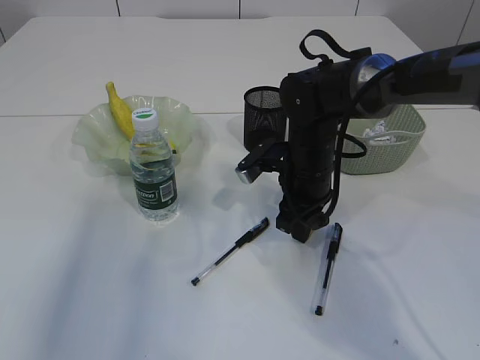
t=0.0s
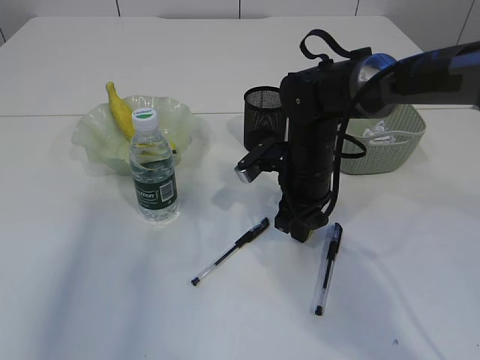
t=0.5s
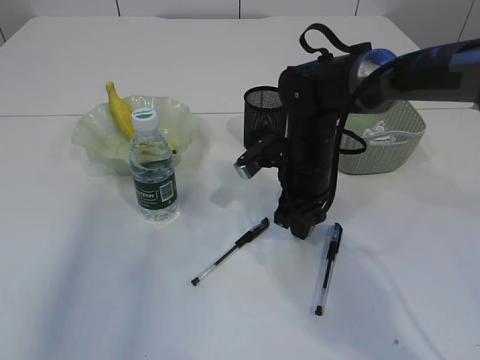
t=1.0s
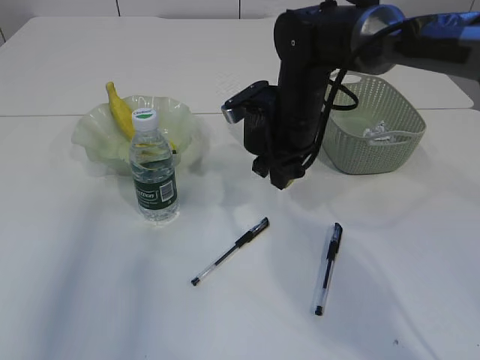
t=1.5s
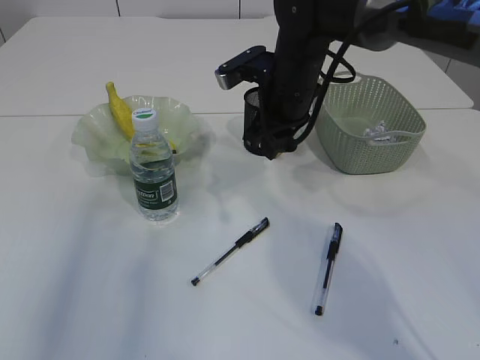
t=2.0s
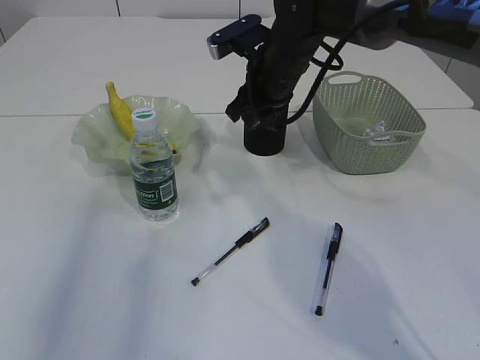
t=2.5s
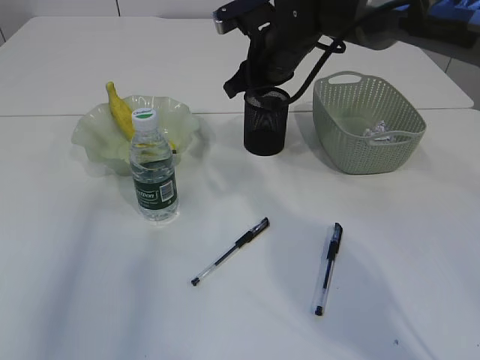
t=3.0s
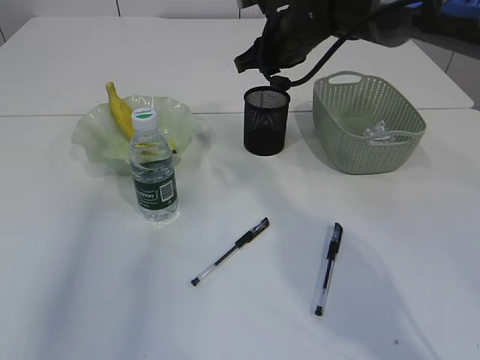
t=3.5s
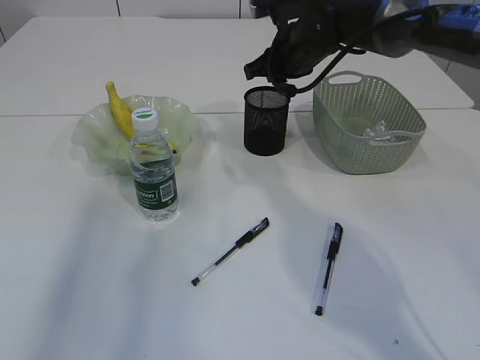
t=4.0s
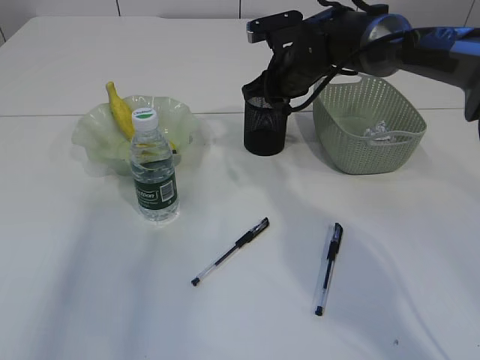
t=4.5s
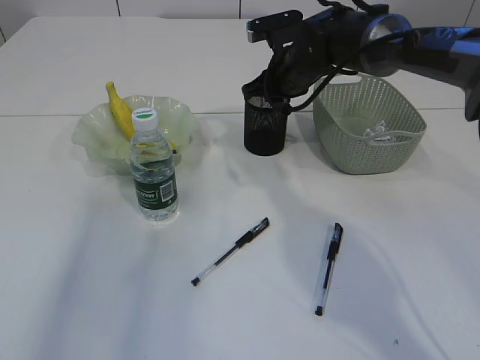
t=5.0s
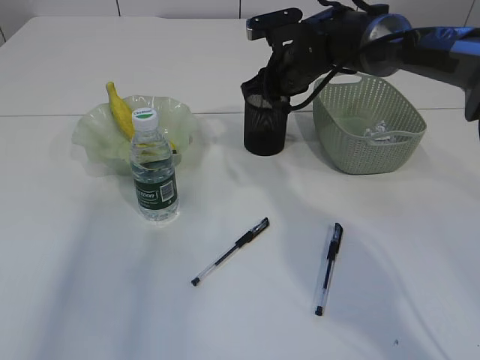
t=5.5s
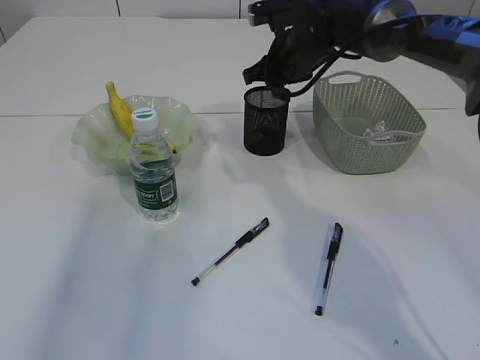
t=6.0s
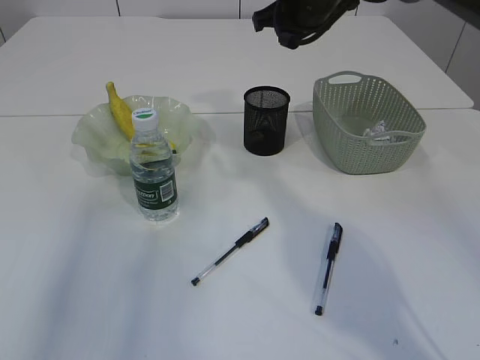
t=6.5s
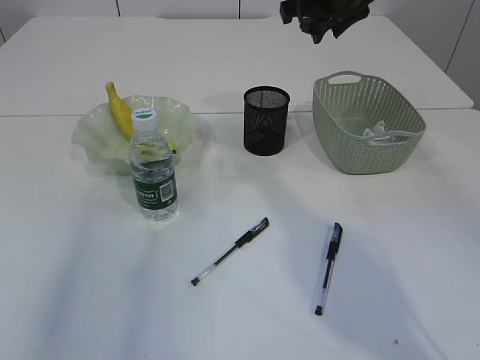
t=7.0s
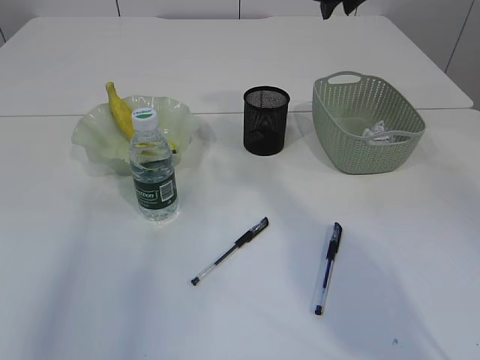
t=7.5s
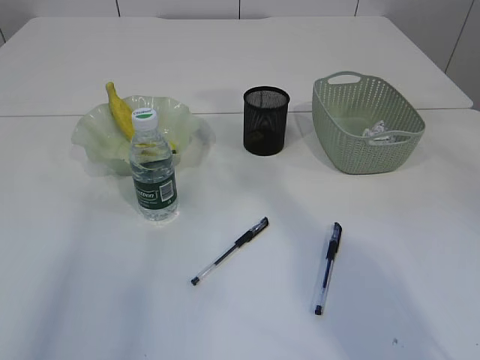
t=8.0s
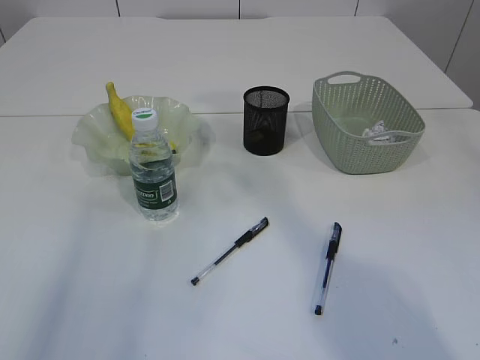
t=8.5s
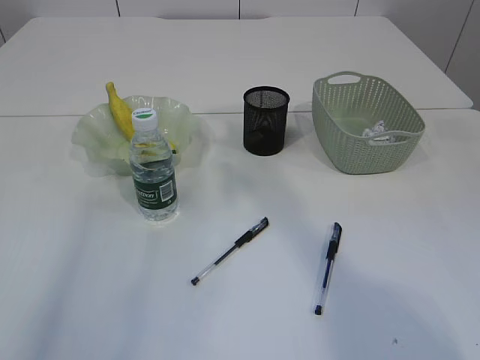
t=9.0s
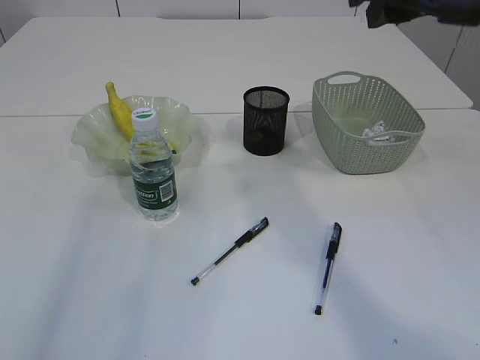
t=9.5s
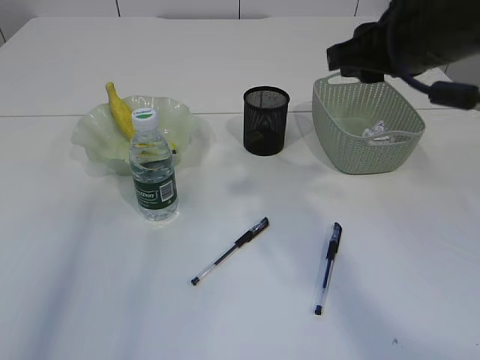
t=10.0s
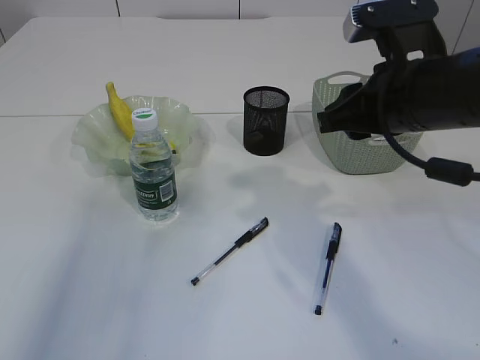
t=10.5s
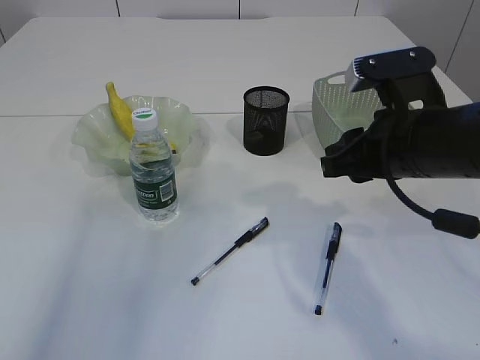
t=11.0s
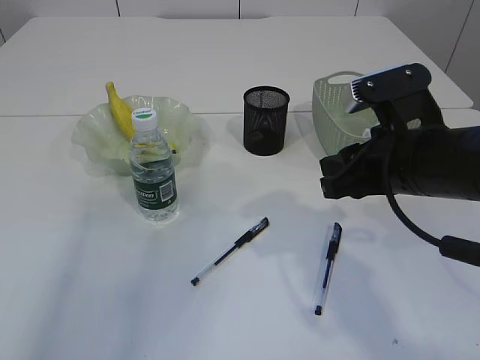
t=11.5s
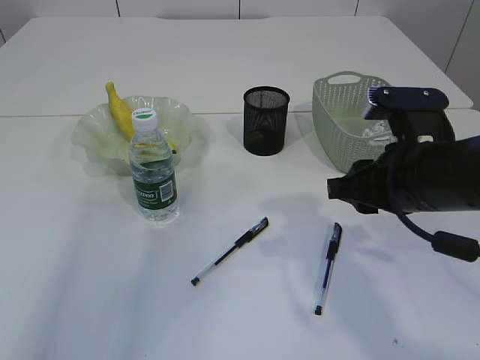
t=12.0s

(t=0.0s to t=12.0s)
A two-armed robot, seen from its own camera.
Step, t=1.5s - t=6.0s: Place the eraser into the pen holder.
t=0.0s - t=2.0s: The right gripper moves upward, some 10 cm.
t=2.0s - t=4.0s: The right gripper moves forward, about 5 cm.
t=4.0s - t=6.0s: The grippers stay close to where they were, moving slightly.
t=6.0s - t=8.0s: The right gripper is displaced upward and backward by some 20 cm.
t=8.0s - t=10.0s: The right gripper shifts about 15 cm backward and downward.
t=10.0s - t=12.0s: The right gripper goes approximately 10 cm downward.

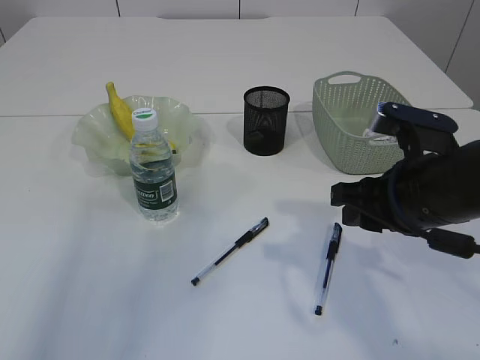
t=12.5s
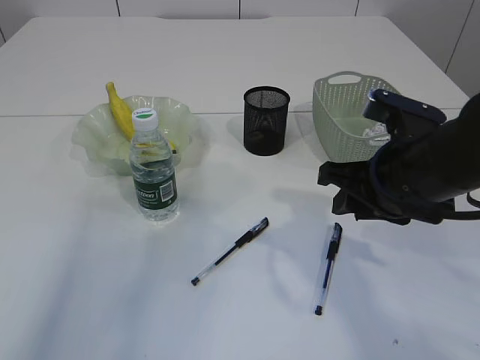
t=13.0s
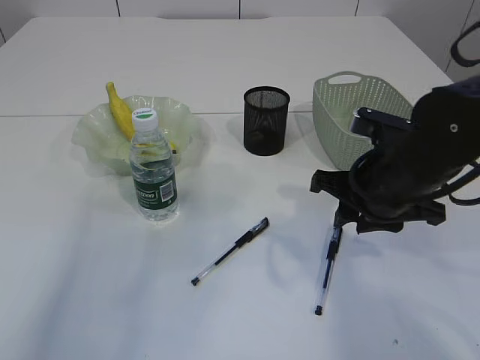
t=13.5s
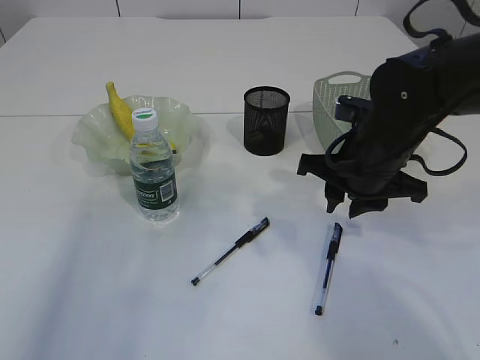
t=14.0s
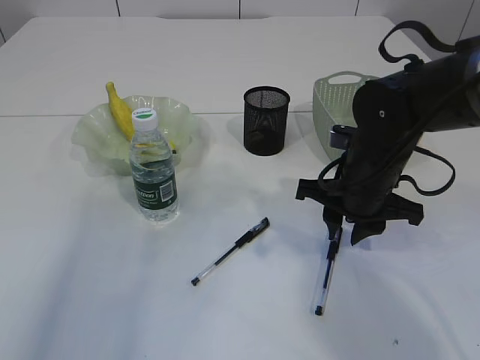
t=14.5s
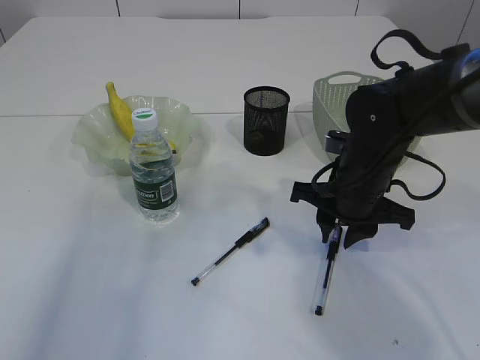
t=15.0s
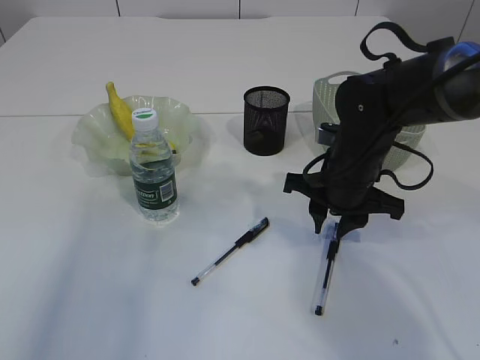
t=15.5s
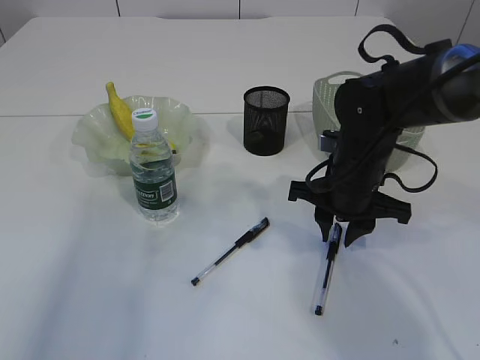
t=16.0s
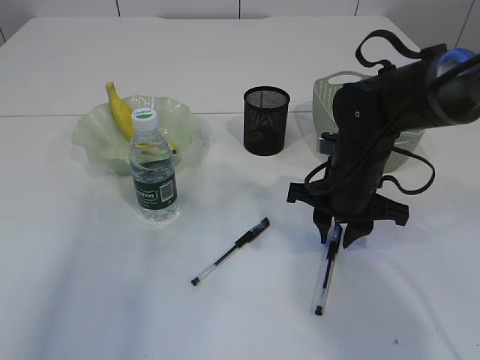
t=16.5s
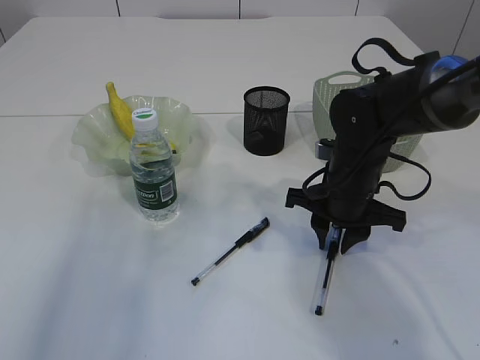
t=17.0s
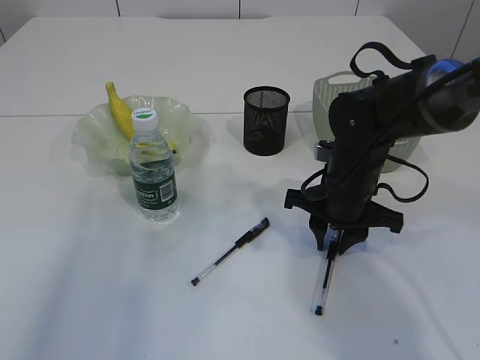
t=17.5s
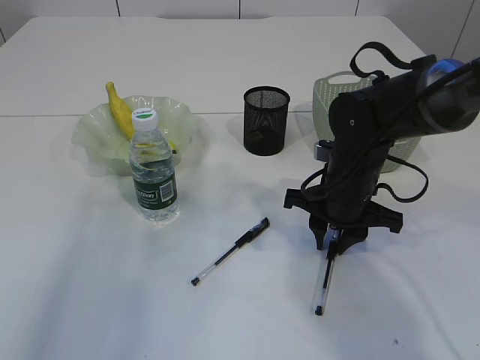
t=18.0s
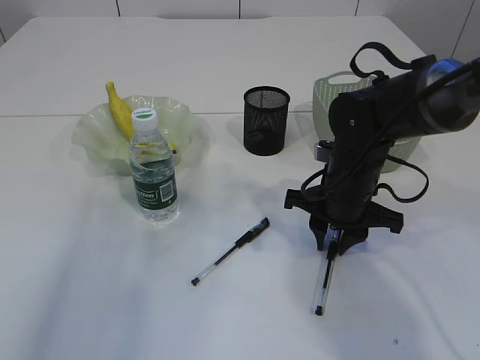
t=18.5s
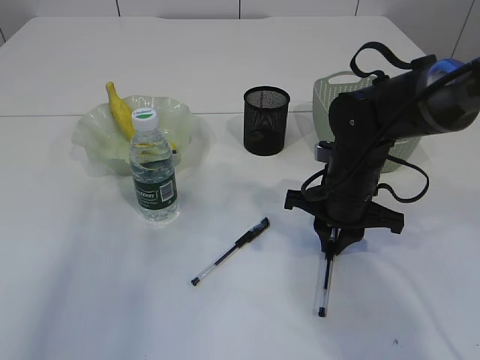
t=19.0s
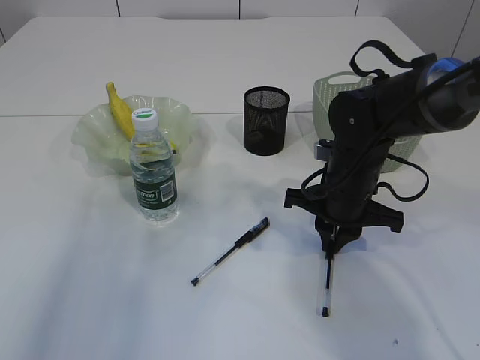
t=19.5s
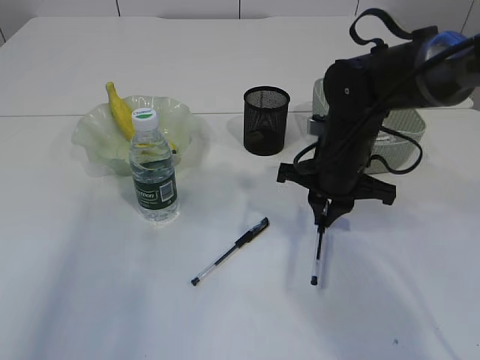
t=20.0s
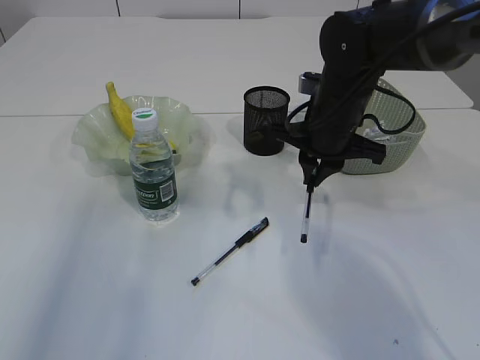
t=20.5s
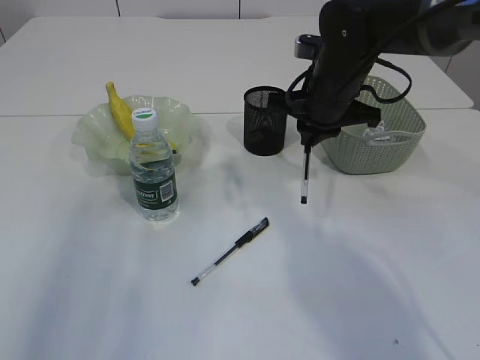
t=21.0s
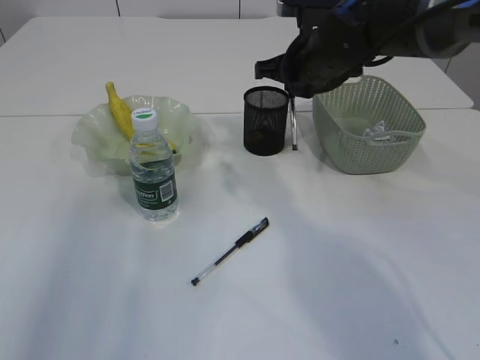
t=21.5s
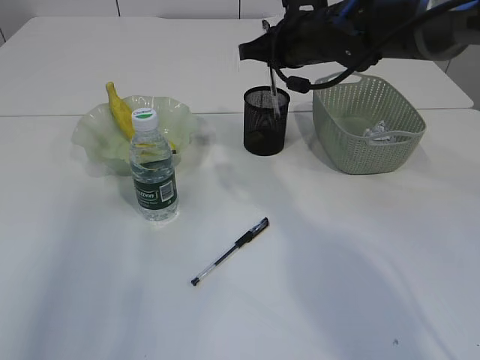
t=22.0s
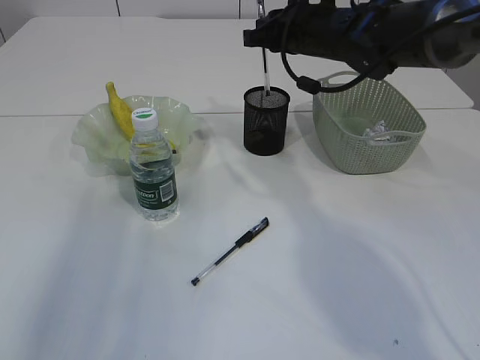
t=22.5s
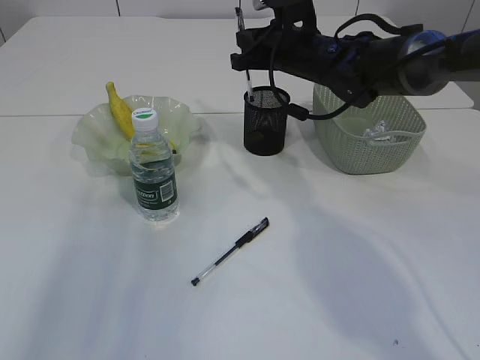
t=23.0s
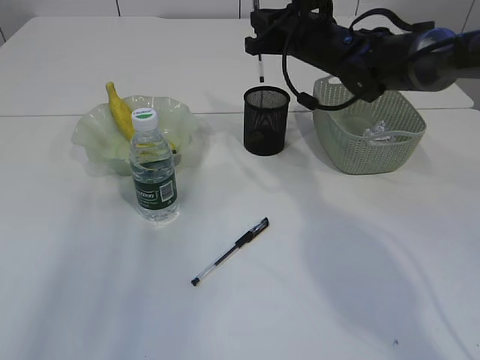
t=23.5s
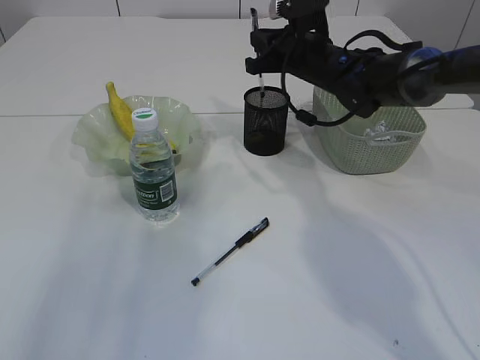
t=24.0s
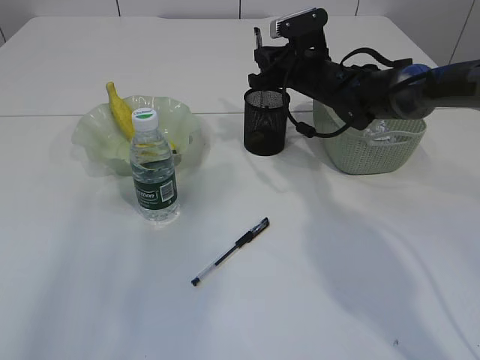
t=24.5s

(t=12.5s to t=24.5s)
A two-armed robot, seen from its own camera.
Step, t=12.5s - t=20.5s: Pick up the pen with right arm.
t=12.5s - t=14.5s: The right gripper goes approximately 10 cm forward.
t=14.5s - t=16.5s: There are only small adjustments of the grippers.
t=16.5s - t=18.5s: Both grippers stay about where they are.
t=18.5s - t=20.5s: The right gripper shifts some 5 cm upward.
t=20.5s - t=22.5s: The right gripper moves forward and upward, about 10 cm.
t=22.5s - t=24.5s: The right gripper heads downward, covering approximately 10 cm.

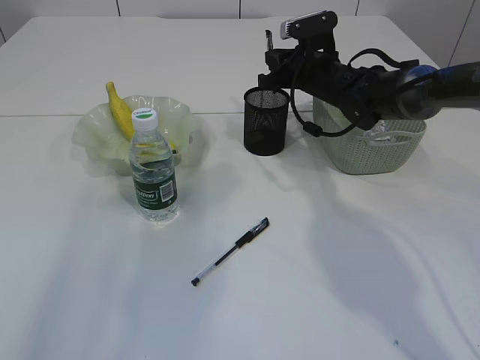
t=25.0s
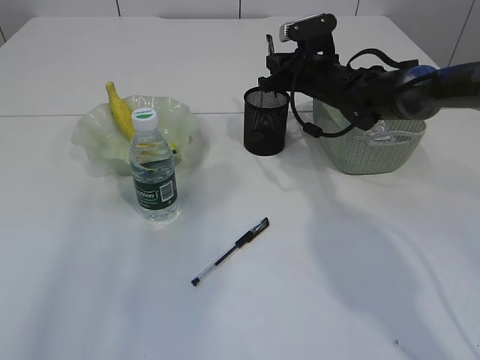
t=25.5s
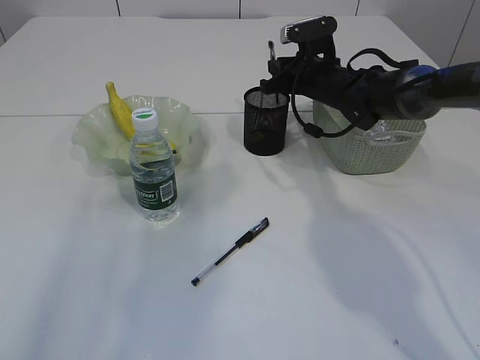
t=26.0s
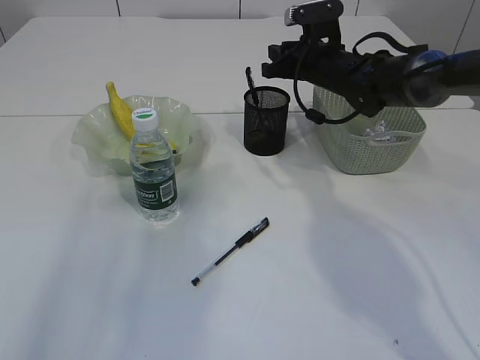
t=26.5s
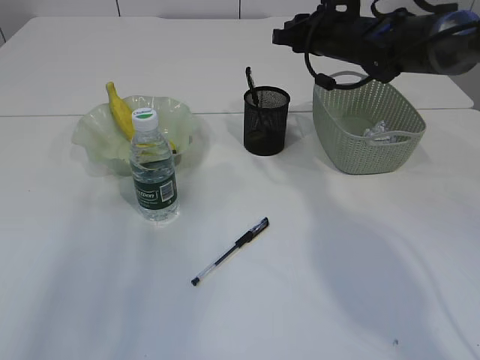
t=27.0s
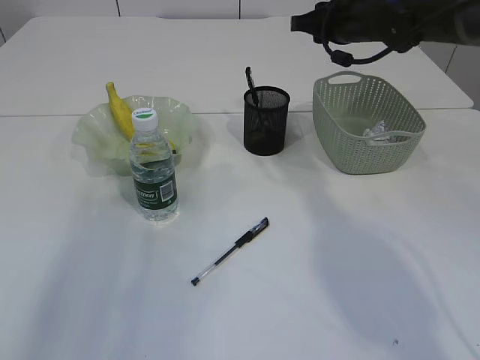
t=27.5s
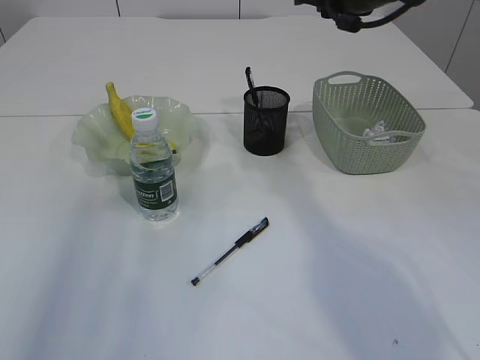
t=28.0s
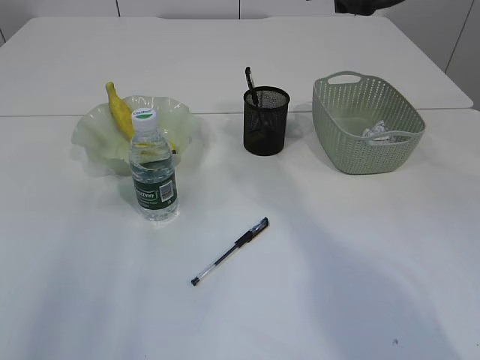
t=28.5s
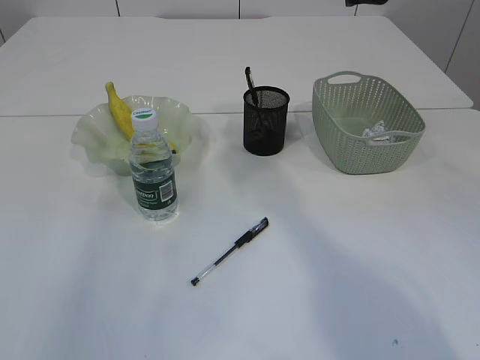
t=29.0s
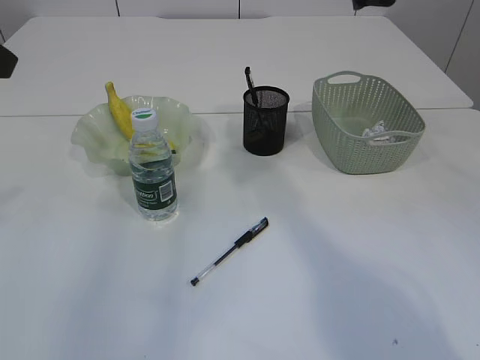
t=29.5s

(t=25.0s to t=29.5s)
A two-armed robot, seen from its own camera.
Step, t=25.0s - t=27.0s: Place the pen into the pen holder.
t=25.0s - t=27.0s: The right gripper goes some 5 cm upward.
t=27.0s - t=29.5s: The left gripper heads forward, covering roughly 5 cm. The right gripper travels upward and backward by about 15 cm.
